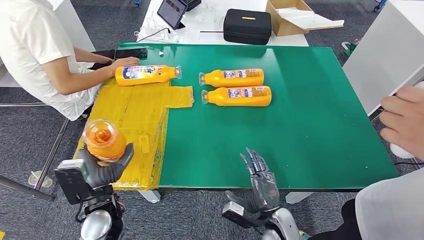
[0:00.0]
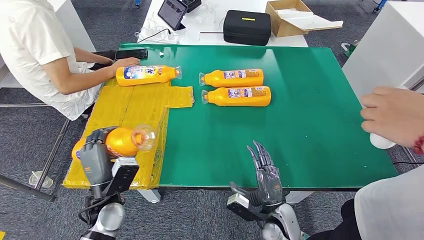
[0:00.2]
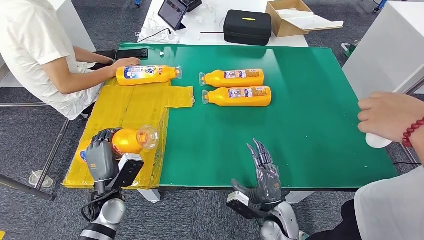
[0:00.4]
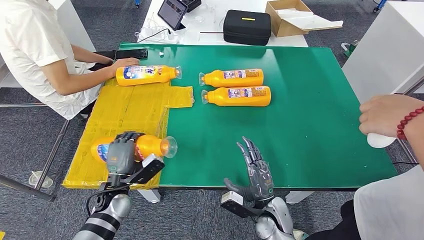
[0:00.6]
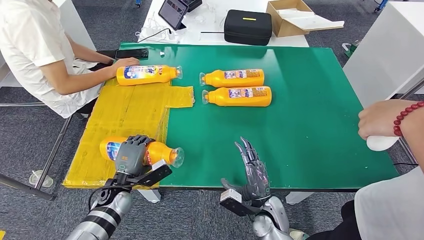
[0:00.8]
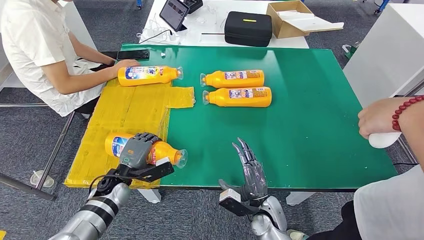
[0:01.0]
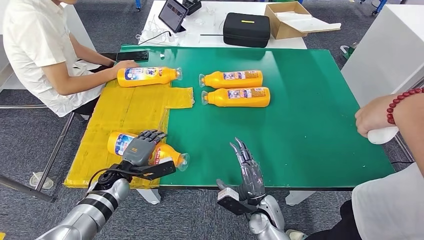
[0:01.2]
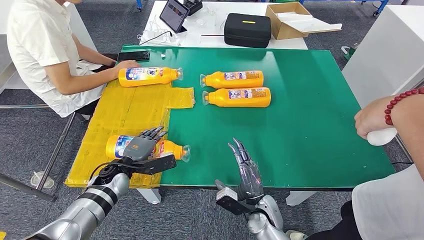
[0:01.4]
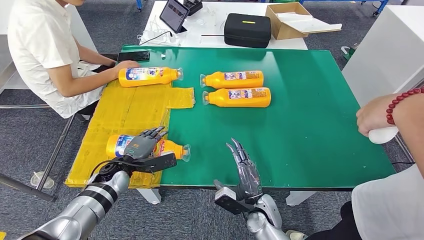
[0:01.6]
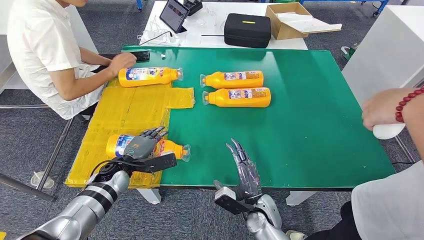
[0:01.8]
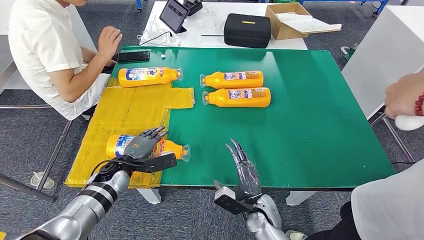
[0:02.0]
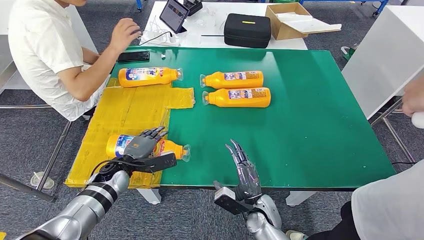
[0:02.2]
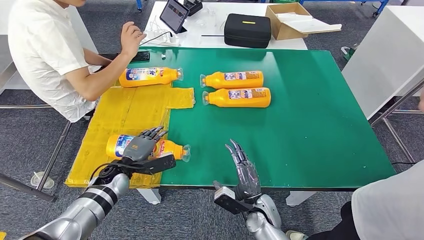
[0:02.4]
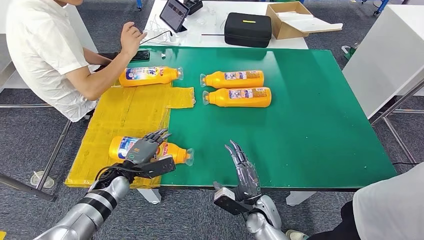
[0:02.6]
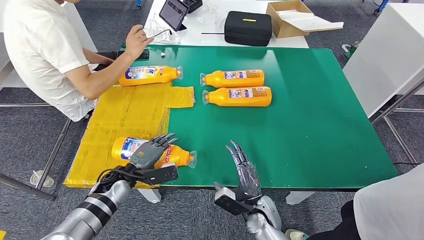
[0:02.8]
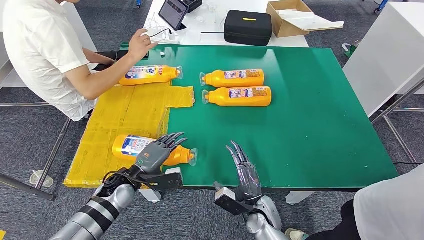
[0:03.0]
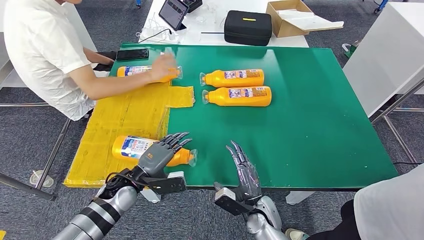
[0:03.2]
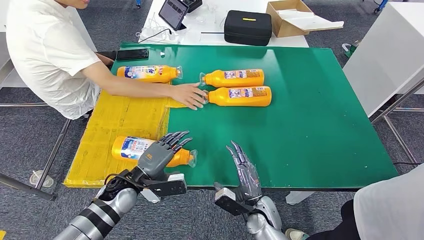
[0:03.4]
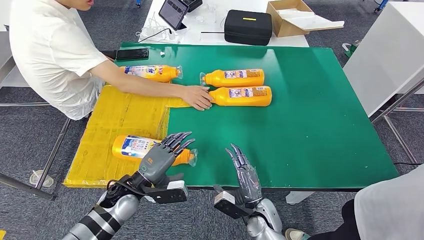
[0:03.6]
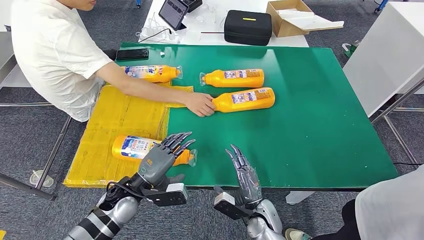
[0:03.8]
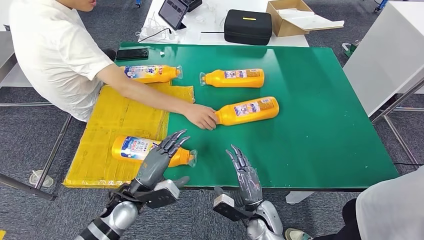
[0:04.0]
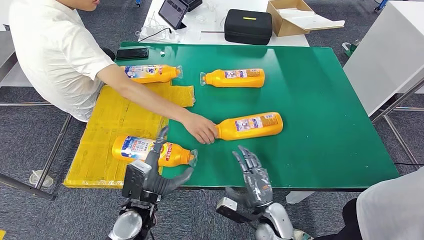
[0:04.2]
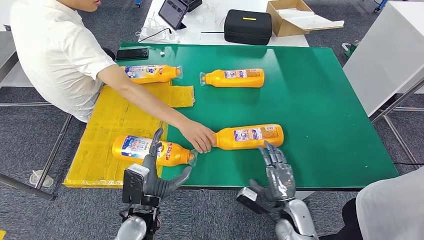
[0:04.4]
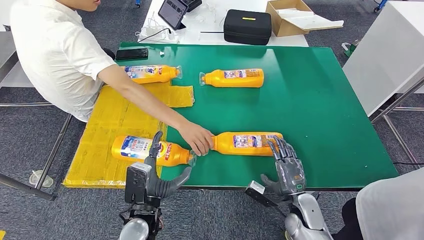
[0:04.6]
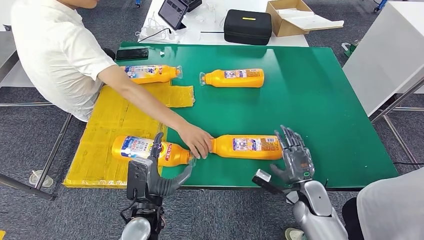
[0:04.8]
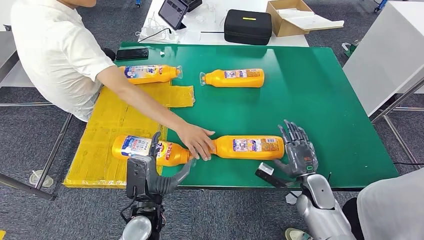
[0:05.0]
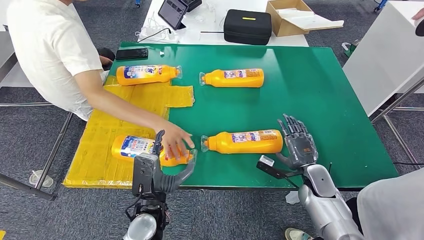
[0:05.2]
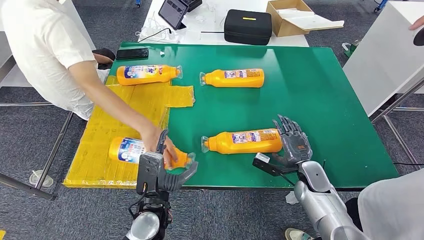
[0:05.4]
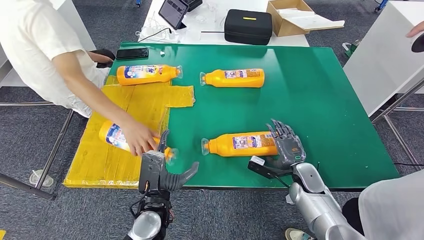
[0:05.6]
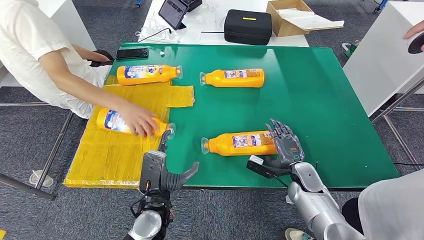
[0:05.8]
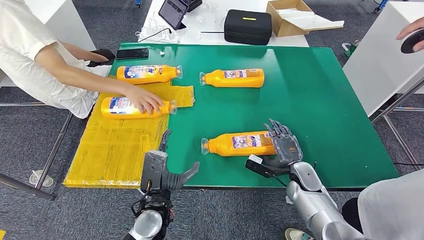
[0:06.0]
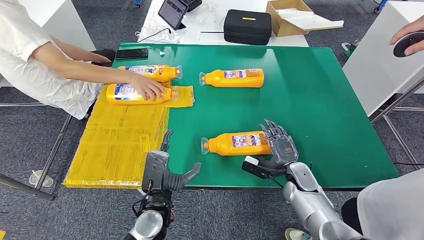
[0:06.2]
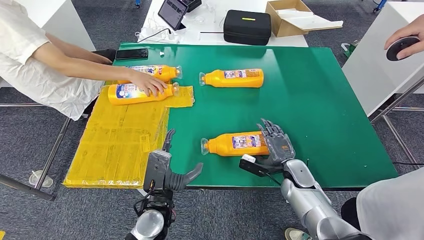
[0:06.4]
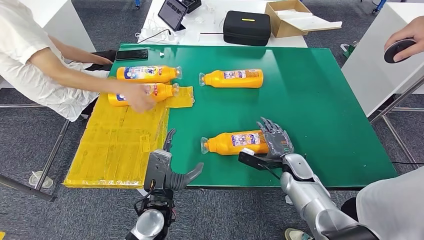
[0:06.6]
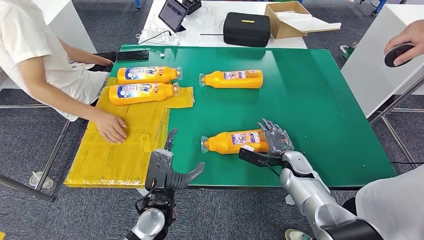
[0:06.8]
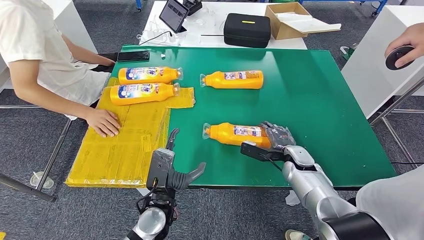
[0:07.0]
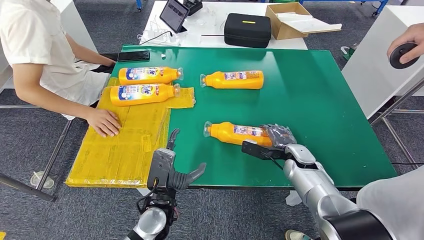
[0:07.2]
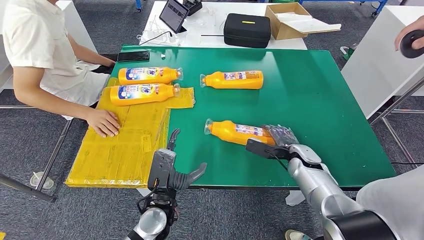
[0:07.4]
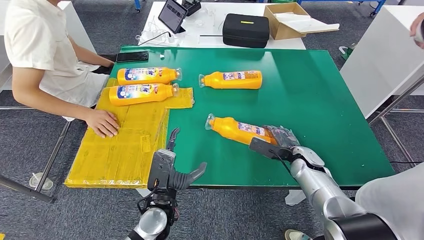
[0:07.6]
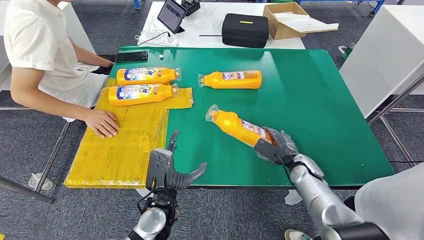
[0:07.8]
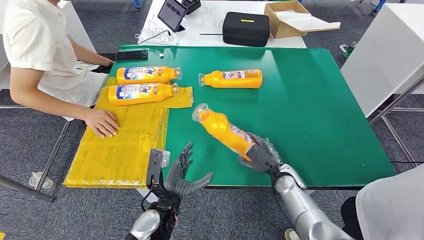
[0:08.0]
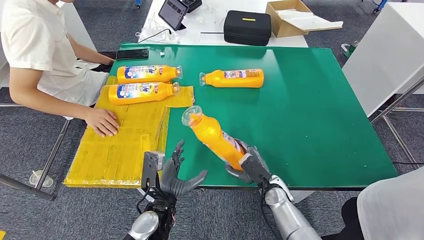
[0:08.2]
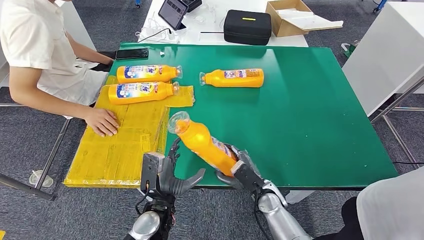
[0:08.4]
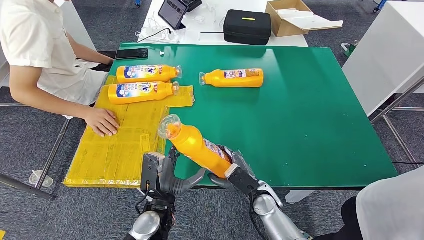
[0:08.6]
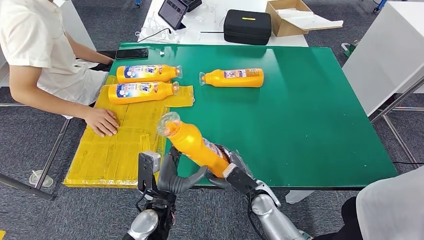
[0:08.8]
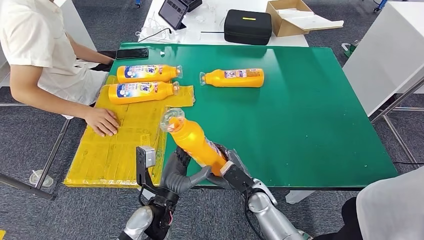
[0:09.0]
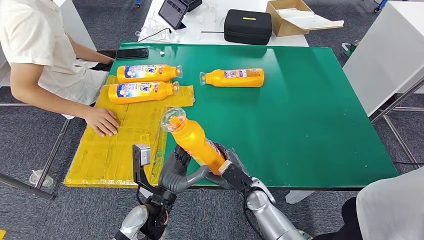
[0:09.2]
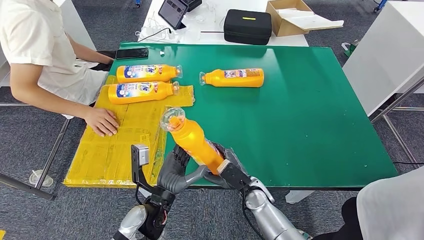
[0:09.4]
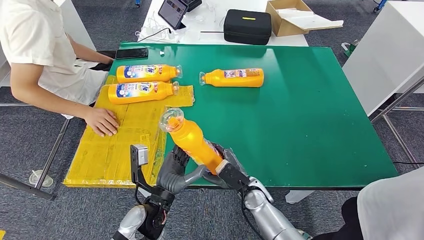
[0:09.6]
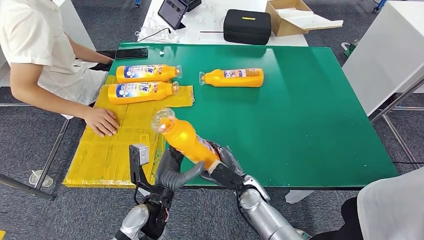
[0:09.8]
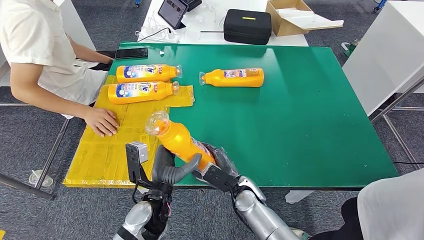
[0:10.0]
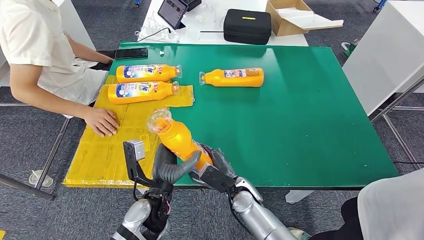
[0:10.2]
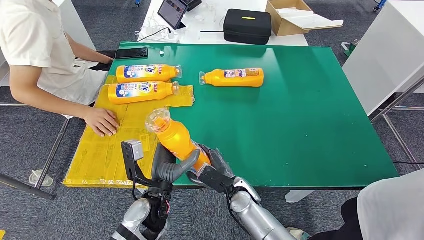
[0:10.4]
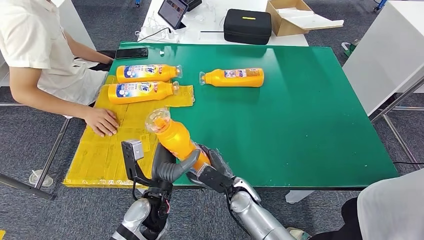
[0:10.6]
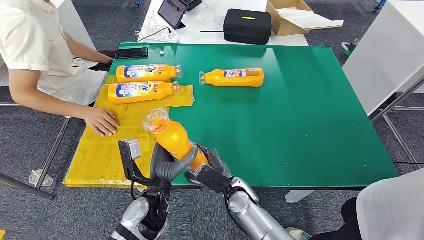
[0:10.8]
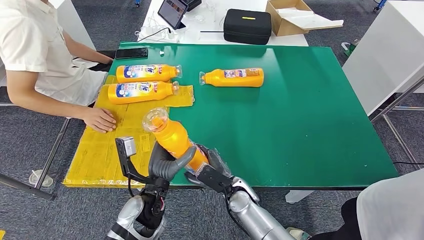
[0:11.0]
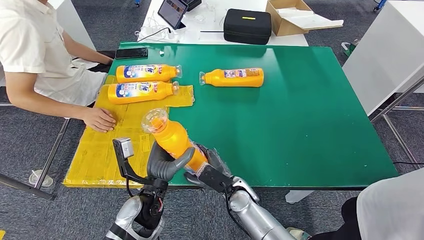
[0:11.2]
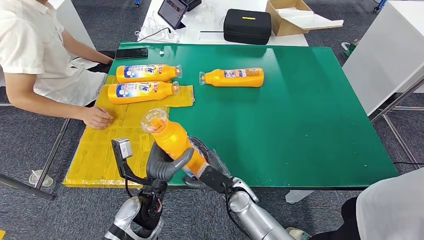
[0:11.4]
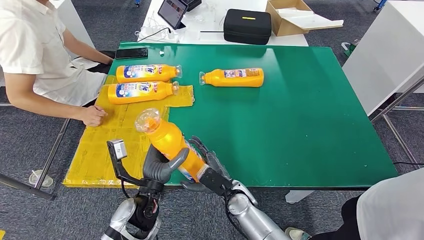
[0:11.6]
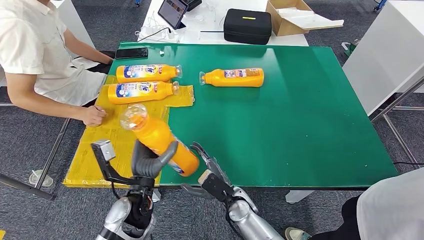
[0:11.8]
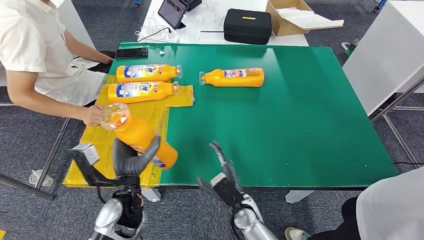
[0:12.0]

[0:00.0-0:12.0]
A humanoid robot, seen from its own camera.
Step, 0:01.2 to 0:09.4: Pick up the fast-moving consumer goods bottle from the table.
0:09.0 to 0:10.4: There are only small adjustments of the hands.
0:10.4 to 0:12.0: The left hand goes approximately 5 cm to the left.

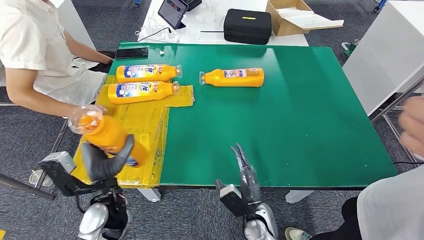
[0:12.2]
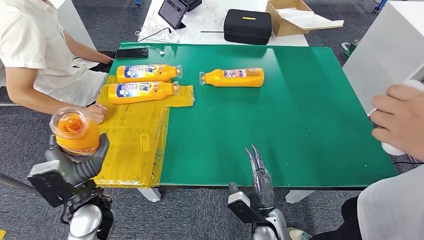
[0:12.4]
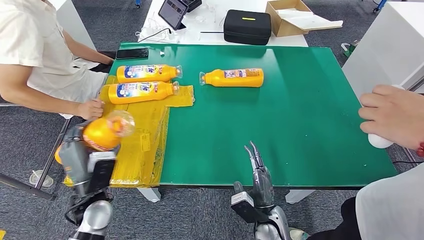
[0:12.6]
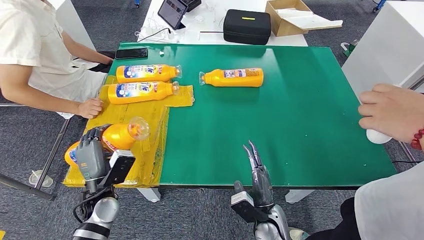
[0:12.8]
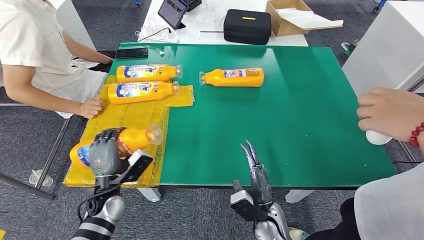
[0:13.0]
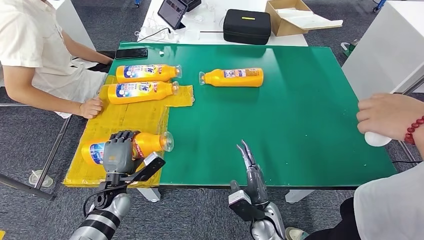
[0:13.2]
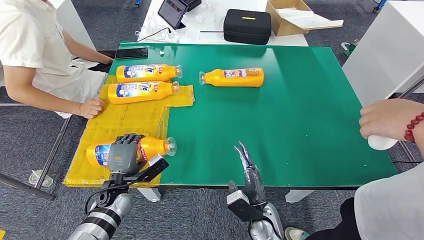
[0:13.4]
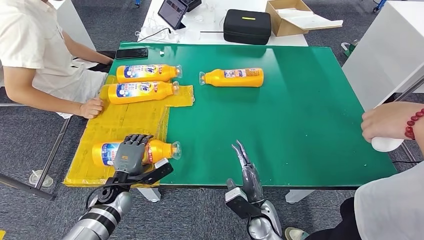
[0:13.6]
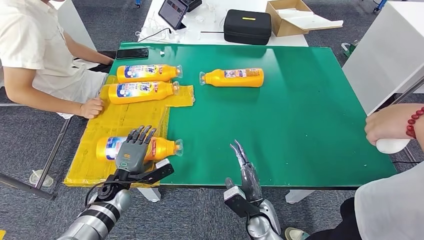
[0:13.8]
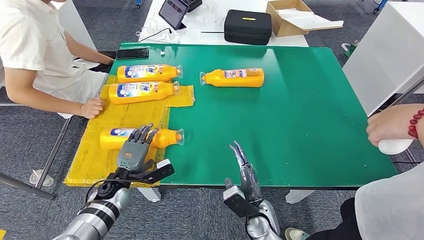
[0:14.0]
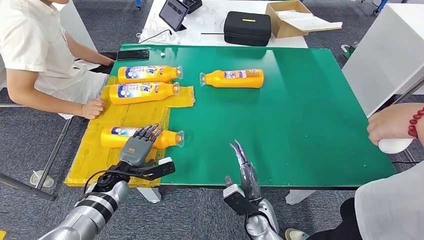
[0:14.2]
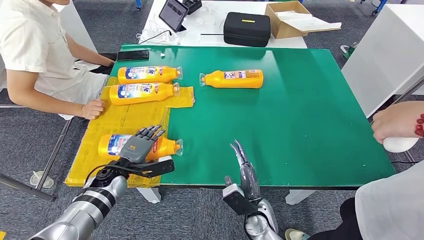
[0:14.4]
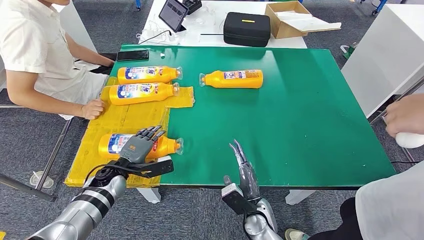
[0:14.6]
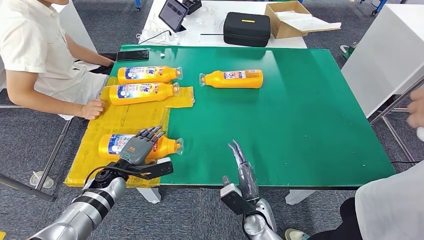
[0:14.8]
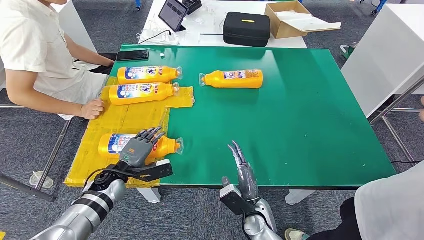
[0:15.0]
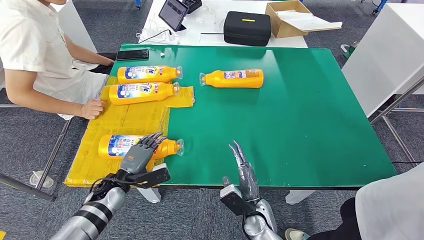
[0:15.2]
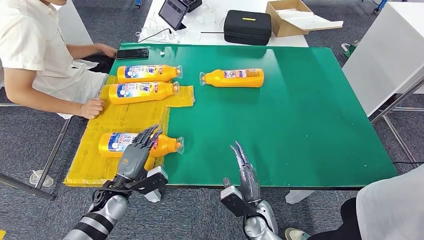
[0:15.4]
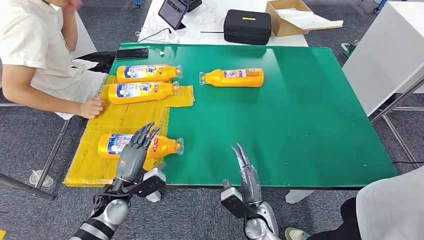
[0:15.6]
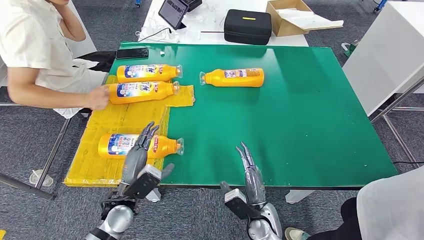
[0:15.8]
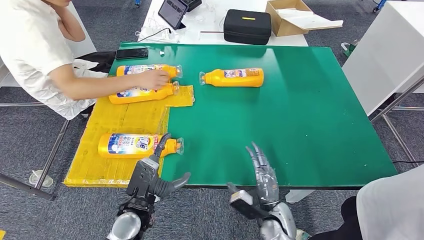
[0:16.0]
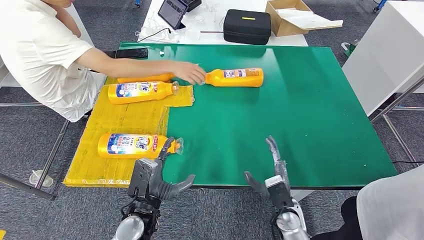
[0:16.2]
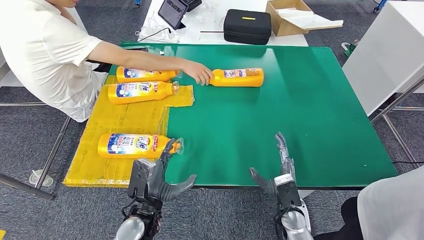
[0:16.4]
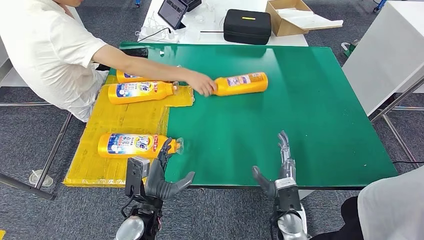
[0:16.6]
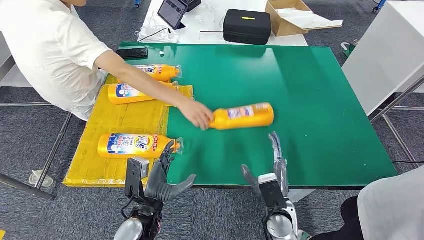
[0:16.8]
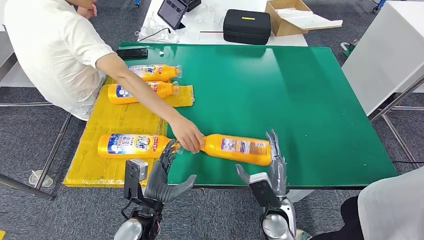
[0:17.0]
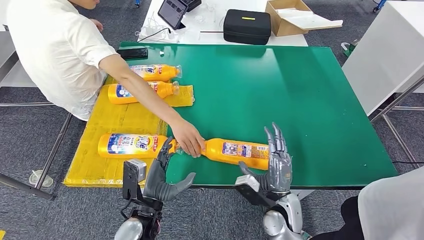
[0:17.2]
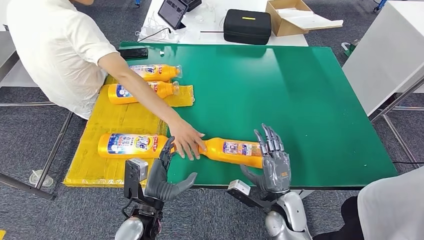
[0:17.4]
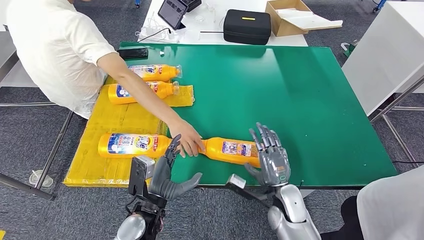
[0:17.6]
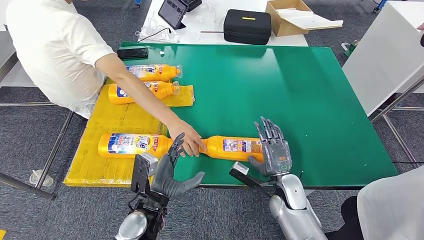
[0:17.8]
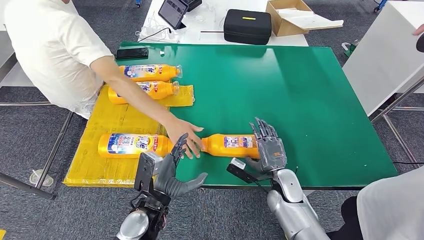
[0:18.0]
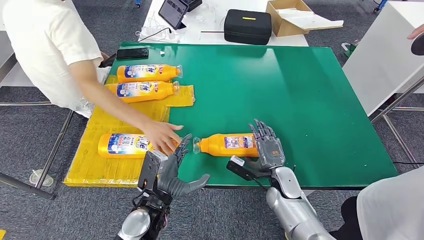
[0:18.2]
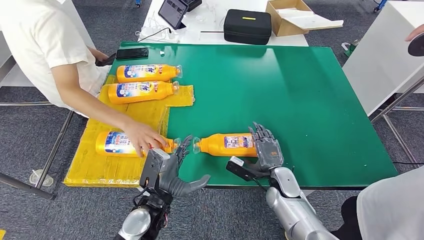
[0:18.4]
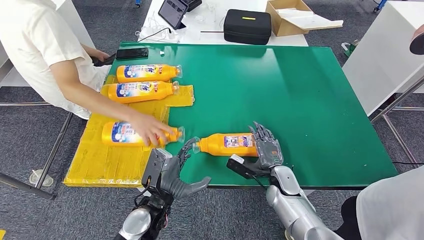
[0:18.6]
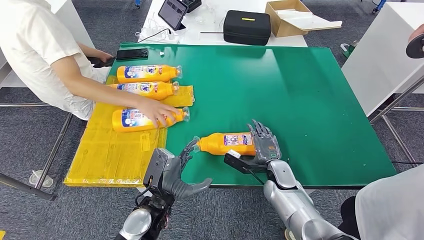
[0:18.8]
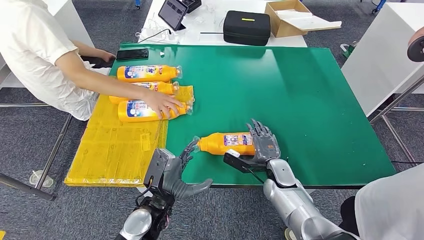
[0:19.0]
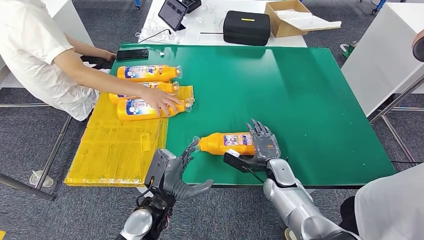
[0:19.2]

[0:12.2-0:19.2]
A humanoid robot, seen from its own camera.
Step, 0:12.2 to 0:14.8: Flip the fast-moving consumer goods bottle to the front side.
0:12.2 to 0:13.6: The left hand moves downward, to the left and forward, about 15 cm.
0:16.4 to 0:17.8: The right hand moves forward, some 5 cm.
